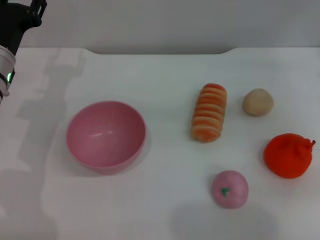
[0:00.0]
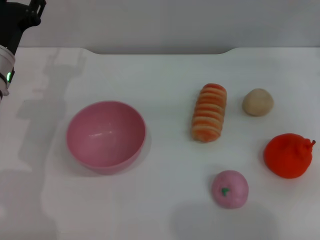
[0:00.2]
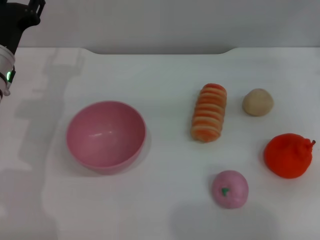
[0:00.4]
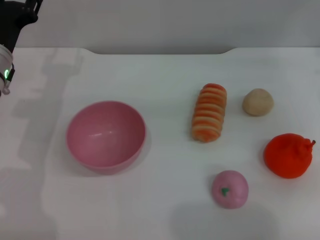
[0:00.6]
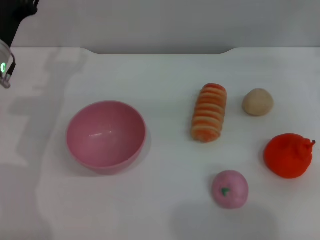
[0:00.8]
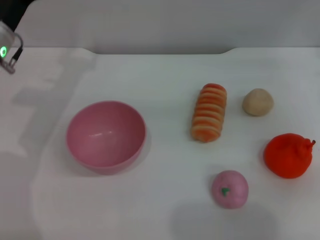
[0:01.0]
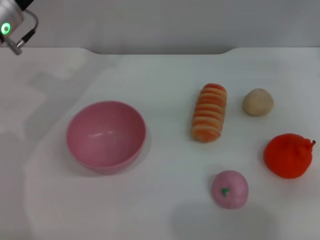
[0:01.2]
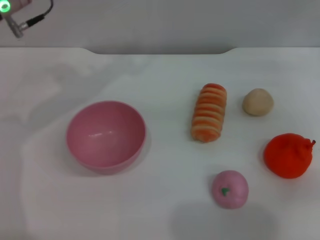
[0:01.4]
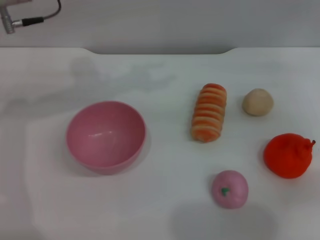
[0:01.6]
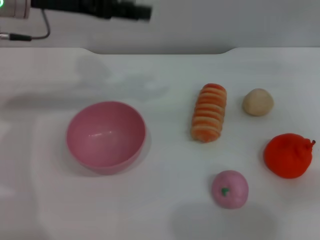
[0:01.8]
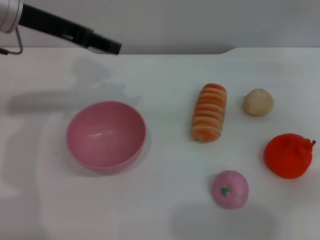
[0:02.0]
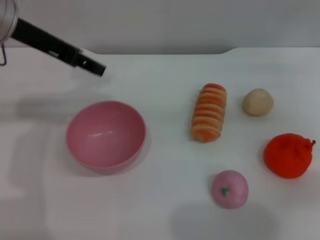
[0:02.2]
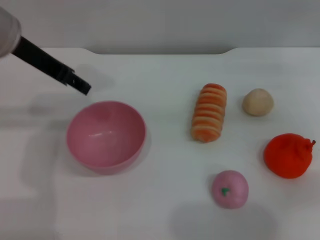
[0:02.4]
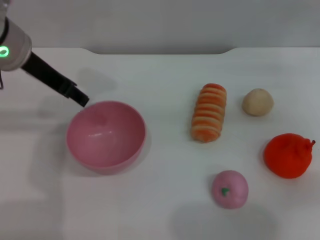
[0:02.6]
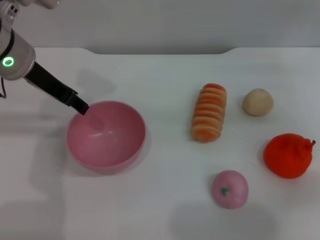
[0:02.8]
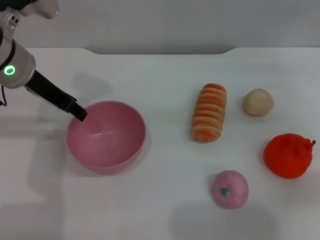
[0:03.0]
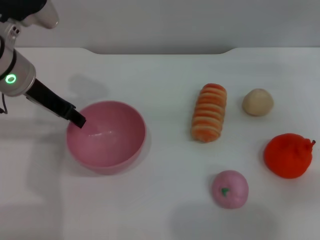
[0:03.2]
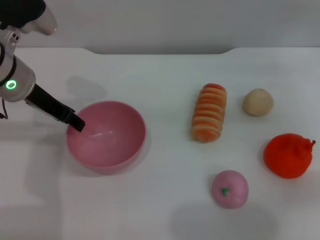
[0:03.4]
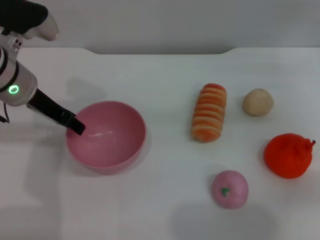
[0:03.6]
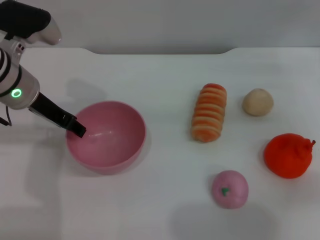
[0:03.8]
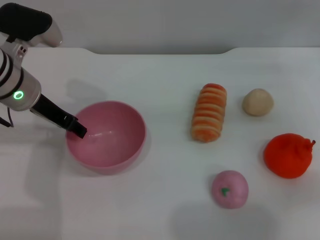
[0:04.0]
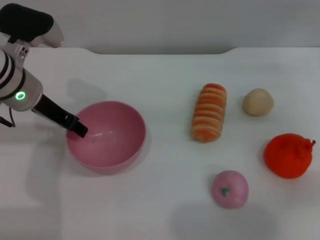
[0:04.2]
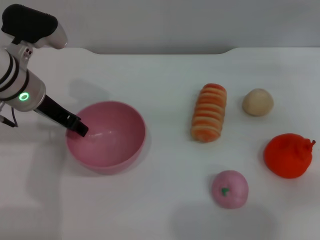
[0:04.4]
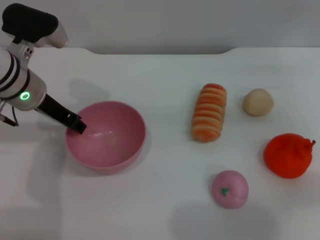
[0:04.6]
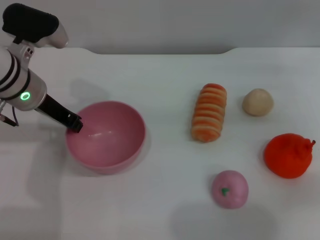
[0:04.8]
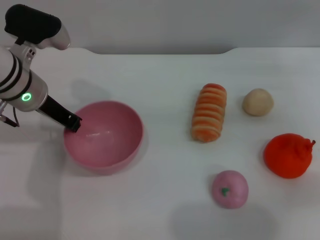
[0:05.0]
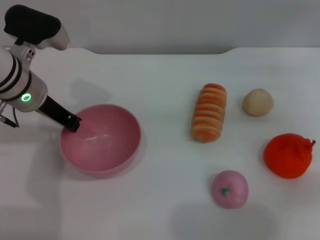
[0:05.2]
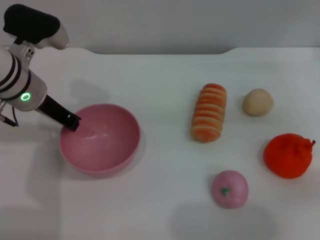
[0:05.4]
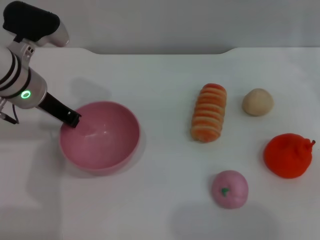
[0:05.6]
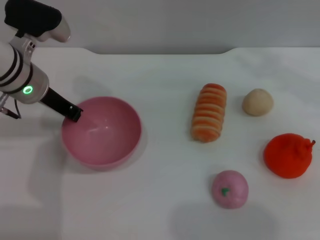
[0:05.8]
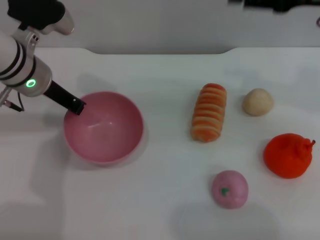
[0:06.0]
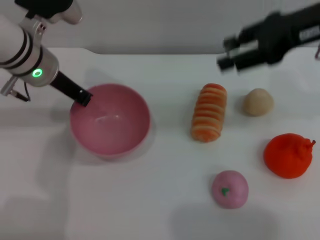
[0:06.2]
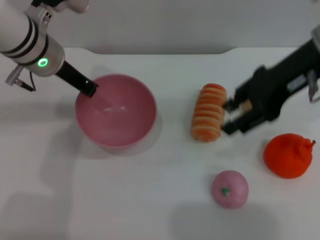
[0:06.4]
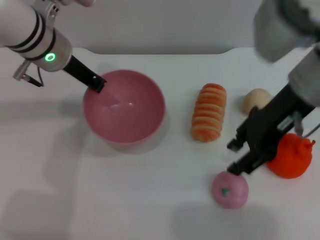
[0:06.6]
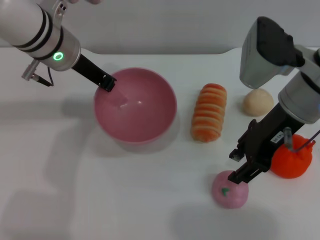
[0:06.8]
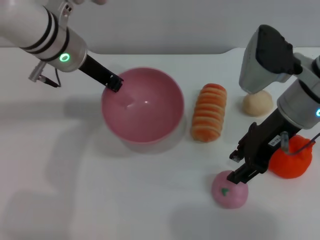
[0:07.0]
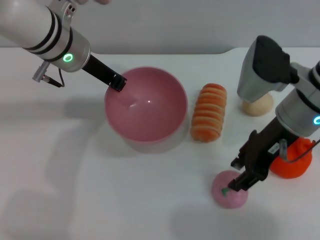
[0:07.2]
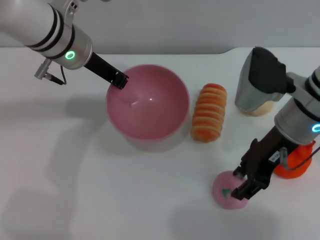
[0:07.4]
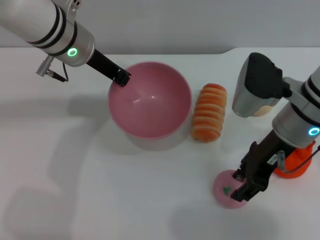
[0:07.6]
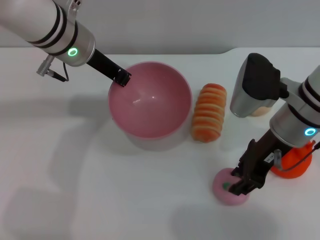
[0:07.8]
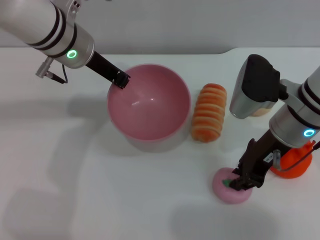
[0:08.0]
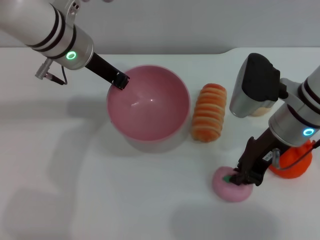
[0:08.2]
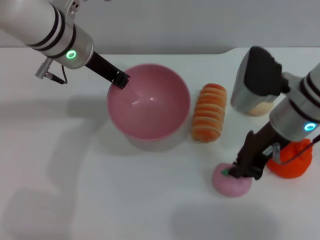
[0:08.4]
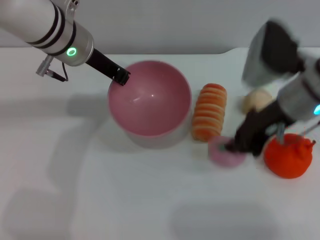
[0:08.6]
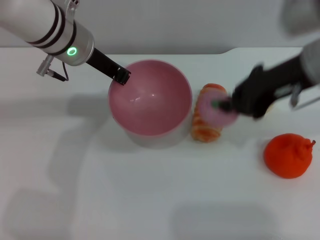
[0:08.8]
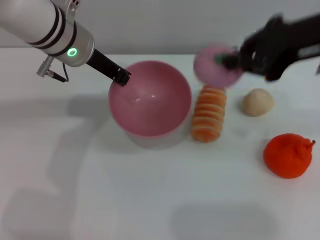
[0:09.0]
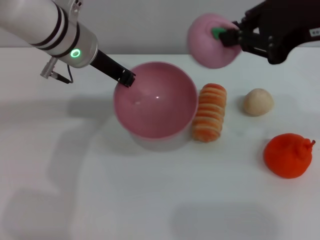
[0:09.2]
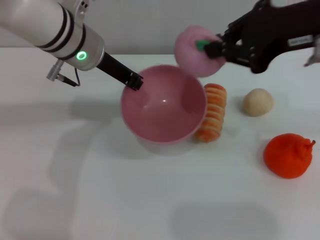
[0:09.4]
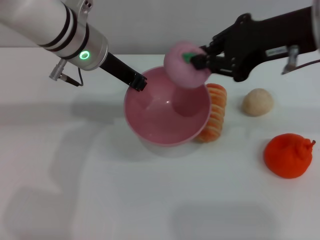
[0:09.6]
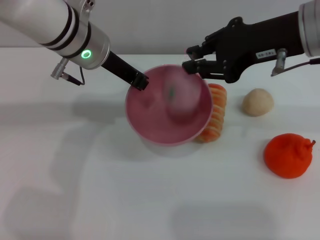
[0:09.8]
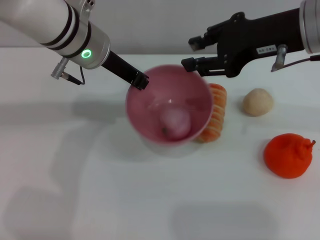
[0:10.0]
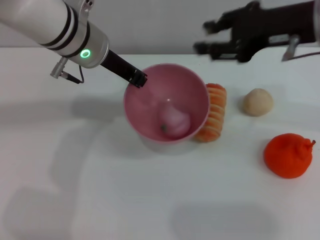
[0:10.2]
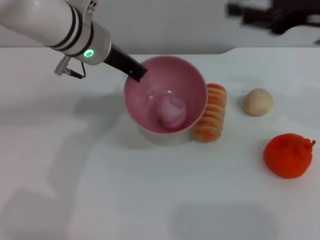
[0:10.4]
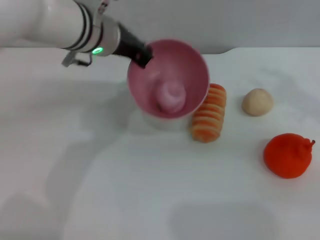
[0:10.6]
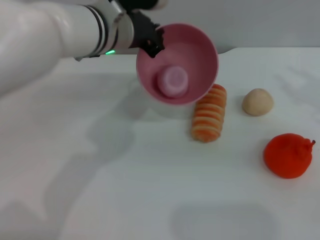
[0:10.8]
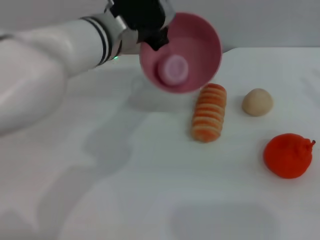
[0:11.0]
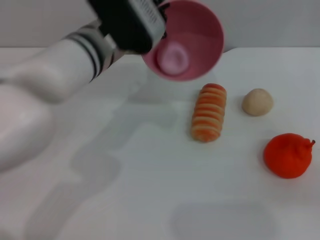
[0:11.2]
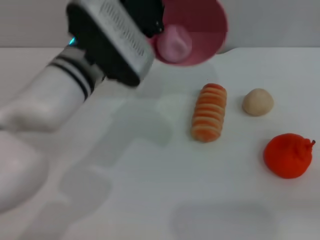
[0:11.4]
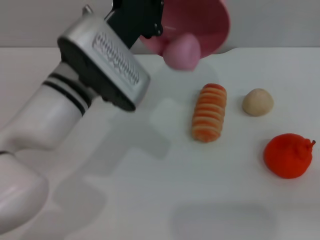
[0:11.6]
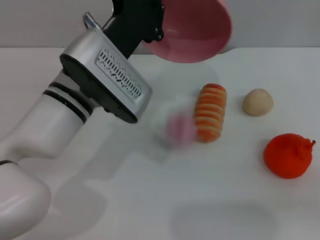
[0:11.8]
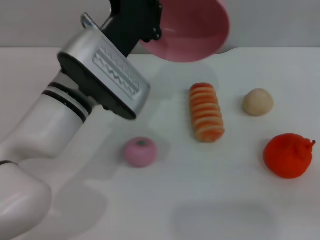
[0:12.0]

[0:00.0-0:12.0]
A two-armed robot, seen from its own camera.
Task of the whole recording: put the peach into the pink bowl and pour it out repeatedly.
Step, 0:00.0 to 0:06.6: Pick up the bowl with the left gripper.
Step, 0:06.8 to 0:08.8: Pick up the peach with the right gripper.
Step, 0:09.0 to 0:09.8: Place the peach into the bowl.
Step, 0:10.2 to 0:12.0: Pour the peach out of bowl.
0:00.0 to 0:01.6: The left gripper shifts approximately 15 cm upward.
0:01.6 to 0:03.0: The left gripper is displaced downward by roughly 5 cm.
0:03.0 to 0:04.4: There are only small adjustments of the grippers.
0:04.4 to 0:06.0: The left gripper closes up. Meanwhile the right gripper moves upward and to the left, some 15 cm.
0:06.0 to 0:07.6: The left gripper travels to the right by roughly 5 cm. The right gripper heads downward and to the left, covering roughly 15 cm.
0:07.6 to 0:09.0: The right gripper is displaced upward by about 15 cm, and closes.
0:09.0 to 0:10.4: The right gripper shifts by about 5 cm, and opens.
0:10.4 to 0:12.0: The left gripper shifts approximately 10 cm backward, while the right gripper is displaced to the right, backward and downward by roughly 20 cm.

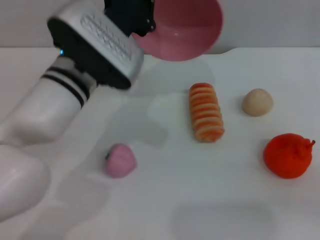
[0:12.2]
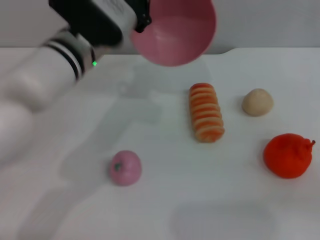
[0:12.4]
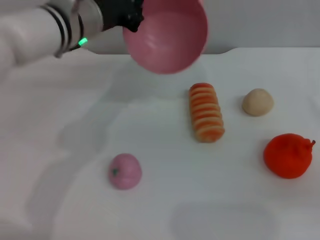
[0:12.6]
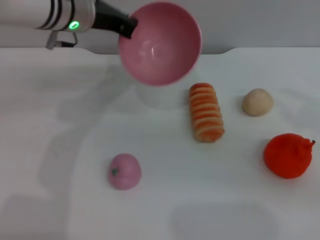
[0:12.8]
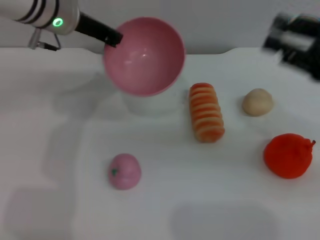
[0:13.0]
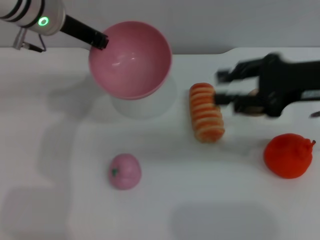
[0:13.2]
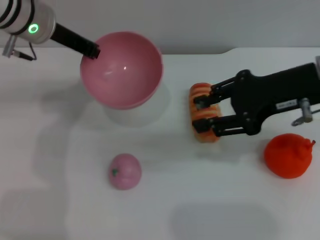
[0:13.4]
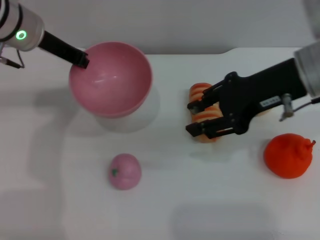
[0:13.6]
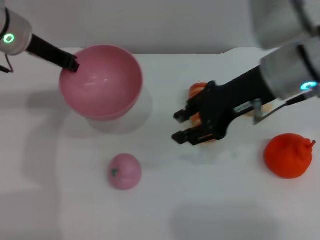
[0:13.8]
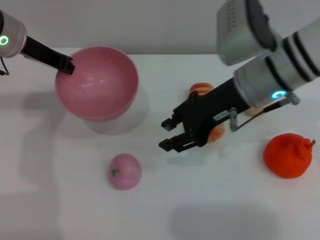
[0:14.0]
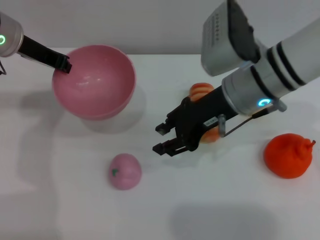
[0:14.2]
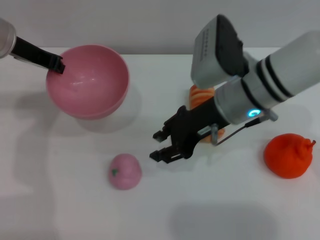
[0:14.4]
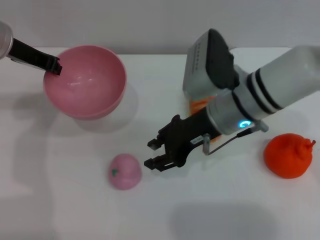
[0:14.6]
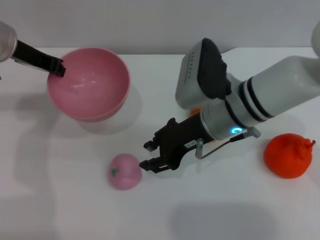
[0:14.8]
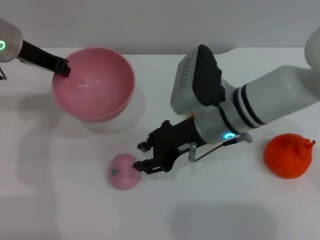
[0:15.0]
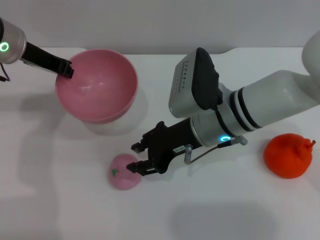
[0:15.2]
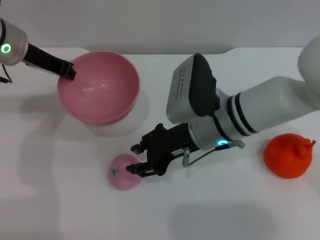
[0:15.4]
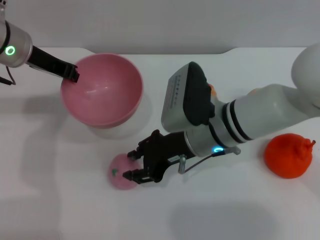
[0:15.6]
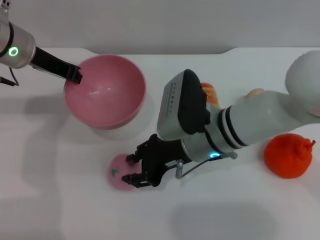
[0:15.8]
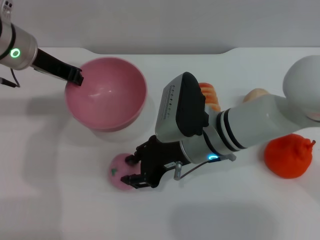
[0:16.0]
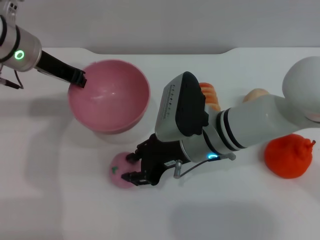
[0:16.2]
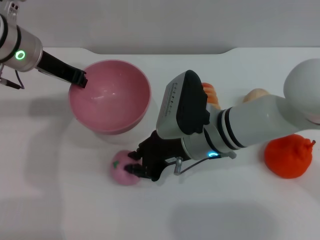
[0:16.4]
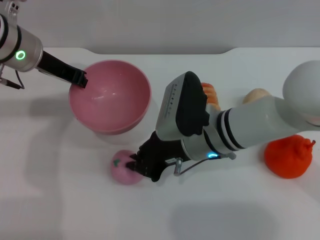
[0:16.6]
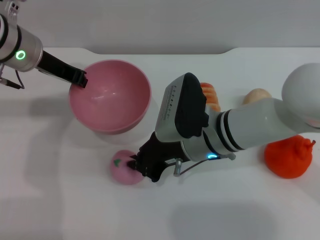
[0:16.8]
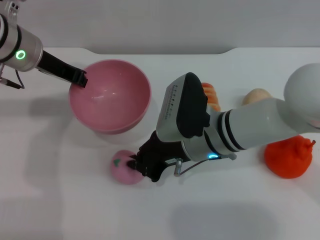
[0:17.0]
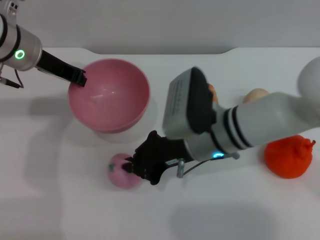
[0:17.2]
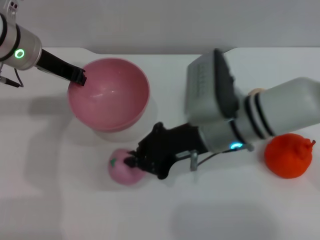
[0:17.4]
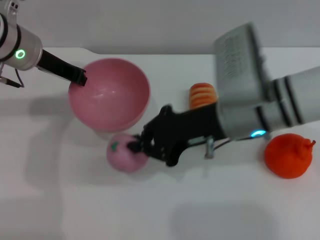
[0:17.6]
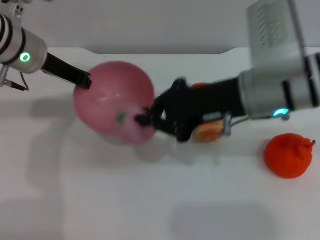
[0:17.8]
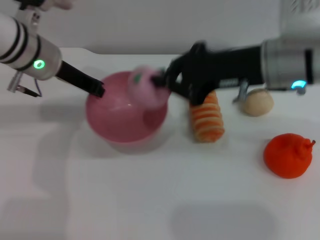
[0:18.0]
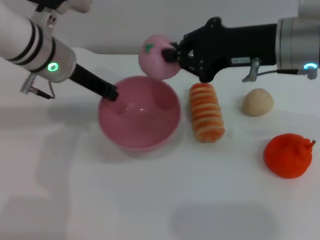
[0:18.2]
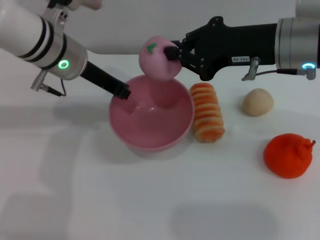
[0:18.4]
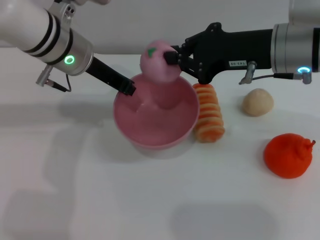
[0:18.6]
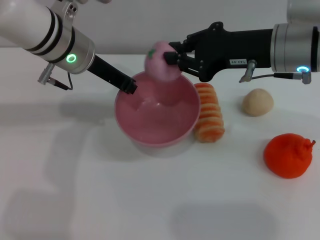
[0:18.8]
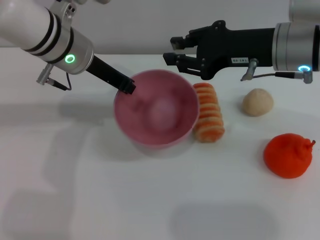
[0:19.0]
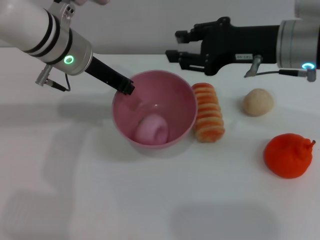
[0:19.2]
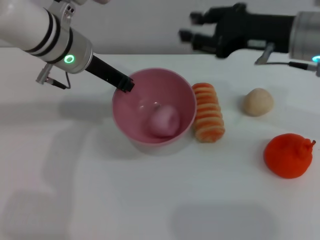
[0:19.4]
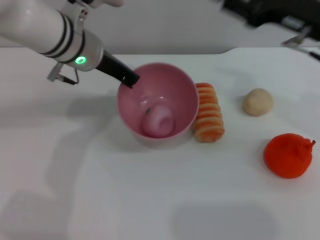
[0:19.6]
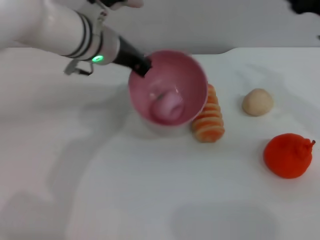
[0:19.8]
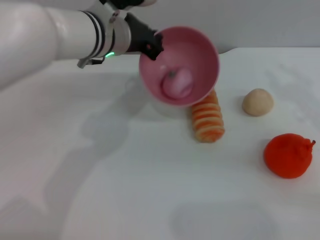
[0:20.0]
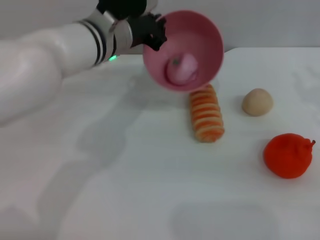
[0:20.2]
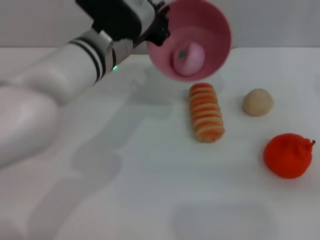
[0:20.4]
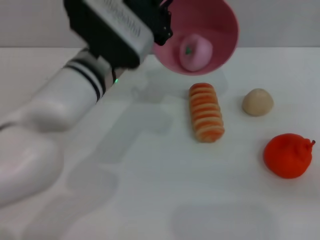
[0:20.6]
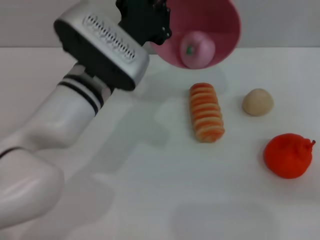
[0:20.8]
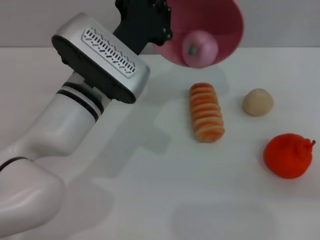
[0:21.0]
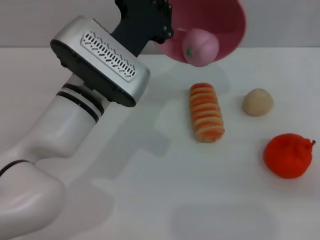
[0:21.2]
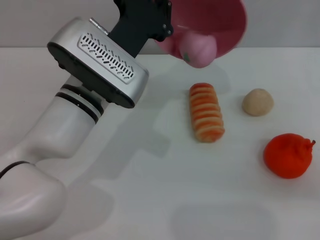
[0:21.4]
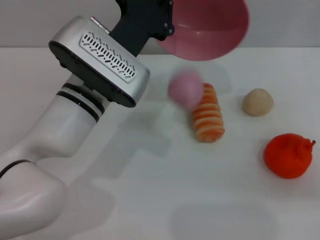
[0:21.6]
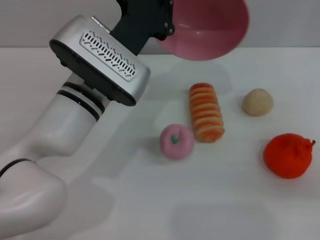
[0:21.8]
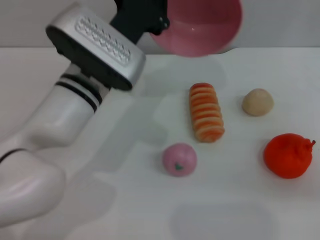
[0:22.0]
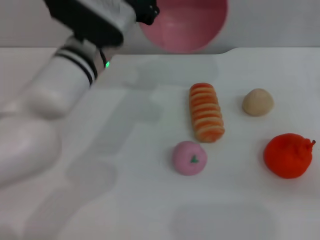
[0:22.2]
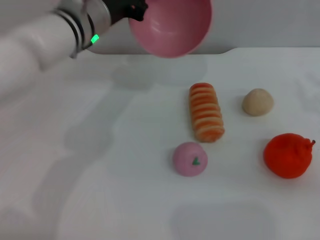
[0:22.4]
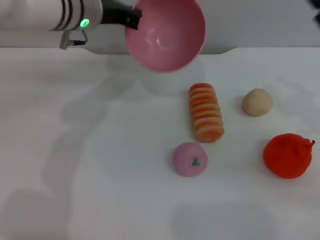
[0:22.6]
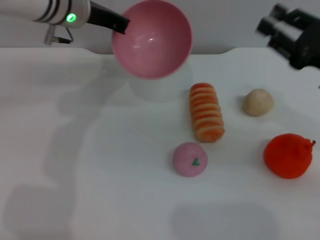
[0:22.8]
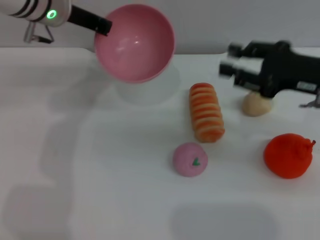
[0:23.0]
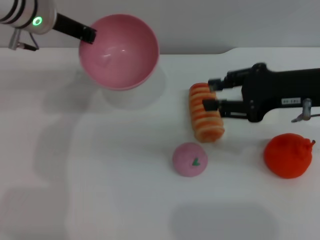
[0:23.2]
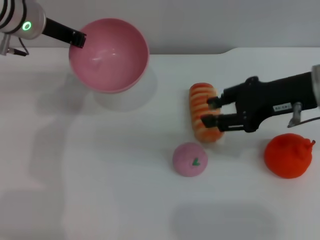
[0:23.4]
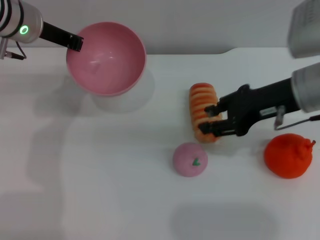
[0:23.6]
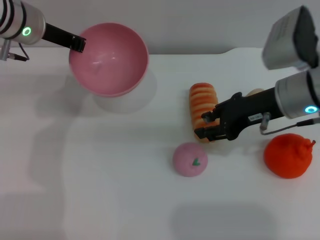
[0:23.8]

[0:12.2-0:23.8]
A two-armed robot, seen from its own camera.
Task of the whole recording: put the peach into the pink bowl and pour it out repeatedly.
Step, 0:12.2 to 0:17.6: Pick up the peach with the right gripper.
Step, 0:18.0 to 0:19.2: Place the peach into the bowl.
Step, 0:19.4 to 0:22.0: Pour the peach out of bowl.
0:12.2 to 0:13.6: The right gripper shifts roughly 20 cm to the left and forward, while the left gripper is displaced to the left, forward and upward by about 15 cm.
0:13.6 to 0:15.0: The right gripper heads downward and to the left, covering roughly 15 cm.
0:15.0 to 0:16.6: The right gripper closes.
0:16.6 to 0:18.0: The right gripper is displaced upward and to the right by about 15 cm.
0:18.0 to 0:19.4: The right gripper opens.
0:19.4 to 0:21.0: The left gripper goes some 10 cm backward, to the right and downward. The right gripper is displaced to the right, backward and downward by about 20 cm.
0:21.0 to 0:22.4: The left gripper is displaced forward by approximately 10 cm.
0:22.4 to 0:23.8: The right gripper heads to the left and forward, covering about 15 cm. The left gripper is displaced to the left by roughly 10 cm.
